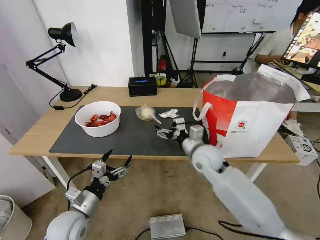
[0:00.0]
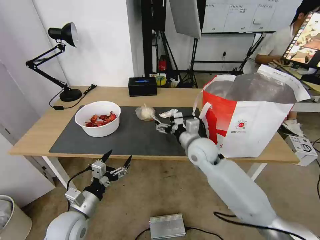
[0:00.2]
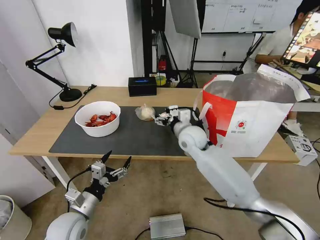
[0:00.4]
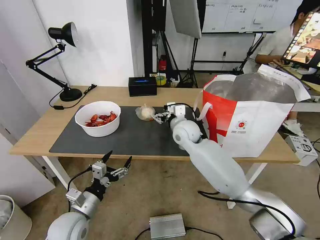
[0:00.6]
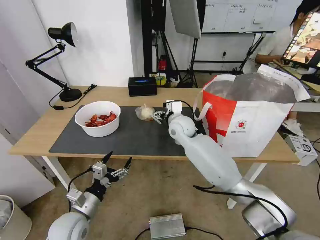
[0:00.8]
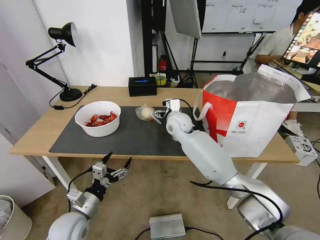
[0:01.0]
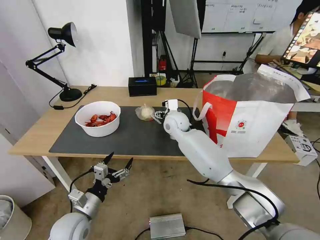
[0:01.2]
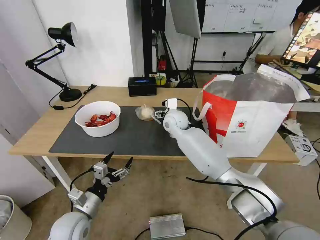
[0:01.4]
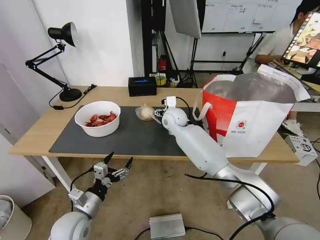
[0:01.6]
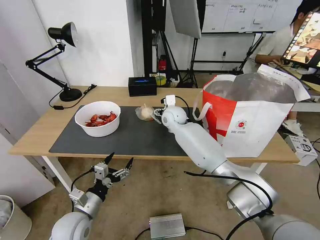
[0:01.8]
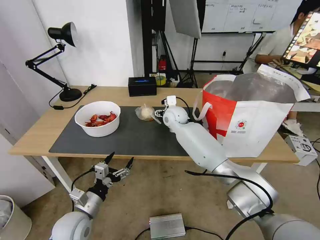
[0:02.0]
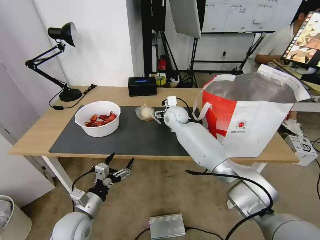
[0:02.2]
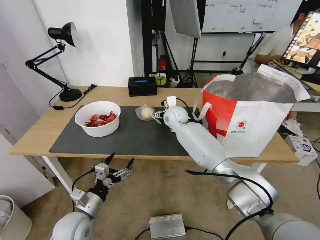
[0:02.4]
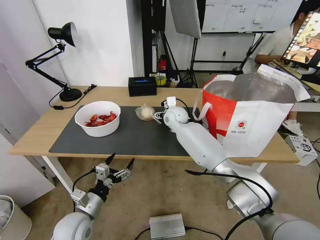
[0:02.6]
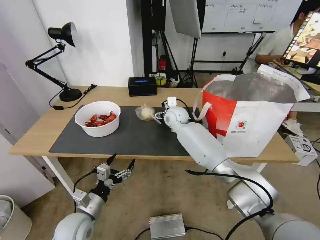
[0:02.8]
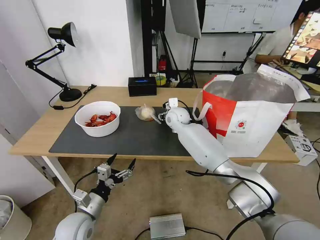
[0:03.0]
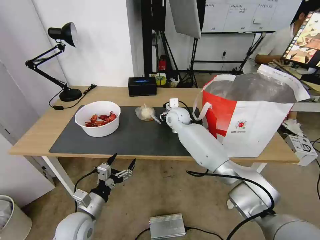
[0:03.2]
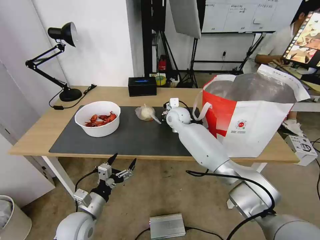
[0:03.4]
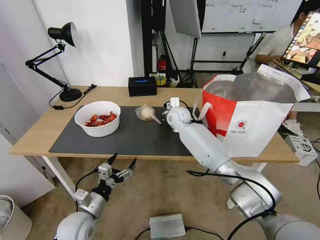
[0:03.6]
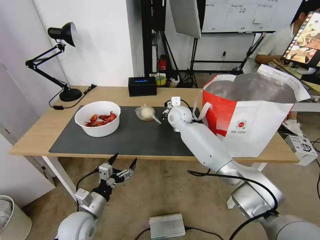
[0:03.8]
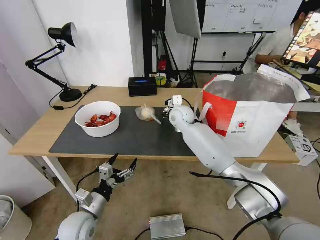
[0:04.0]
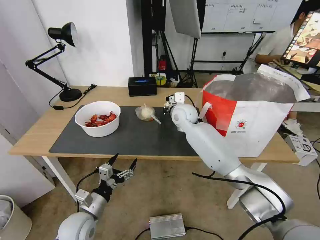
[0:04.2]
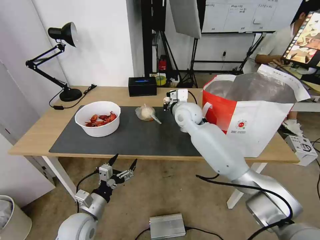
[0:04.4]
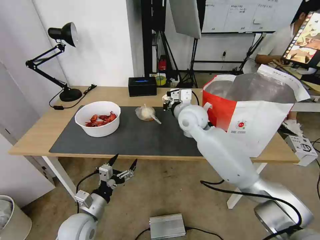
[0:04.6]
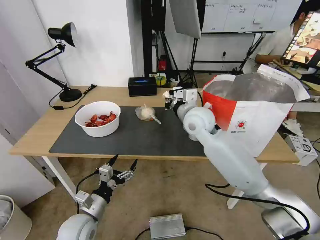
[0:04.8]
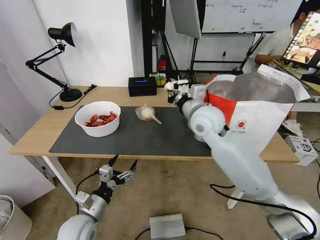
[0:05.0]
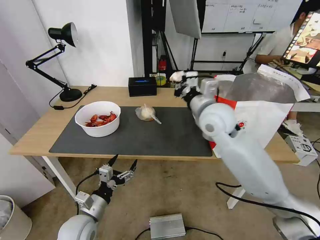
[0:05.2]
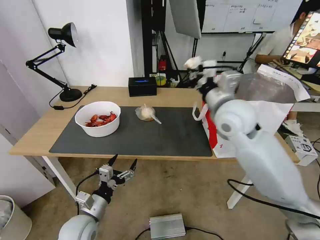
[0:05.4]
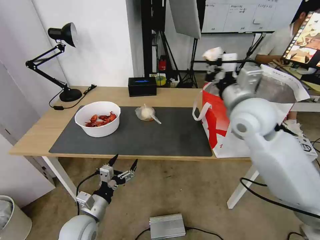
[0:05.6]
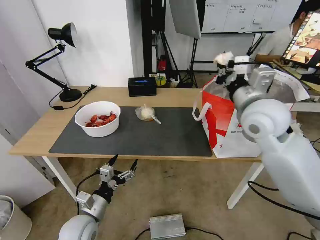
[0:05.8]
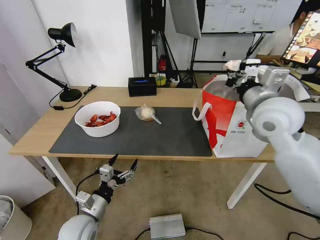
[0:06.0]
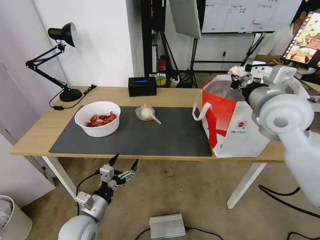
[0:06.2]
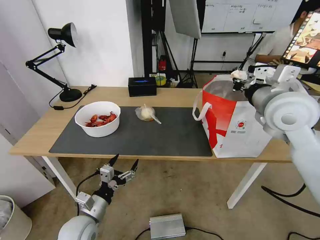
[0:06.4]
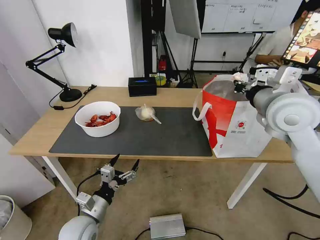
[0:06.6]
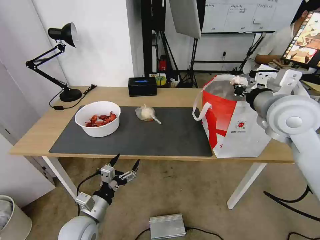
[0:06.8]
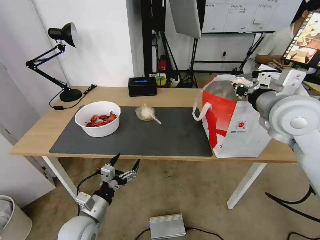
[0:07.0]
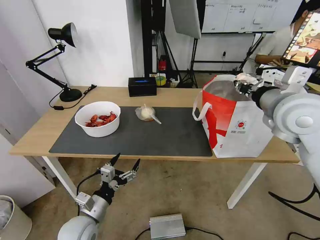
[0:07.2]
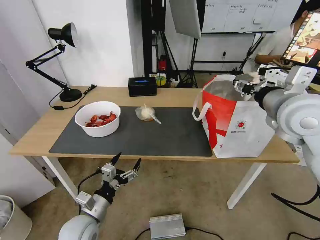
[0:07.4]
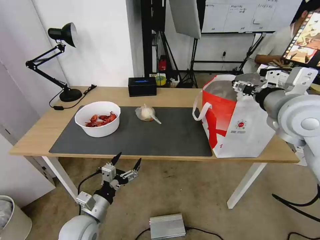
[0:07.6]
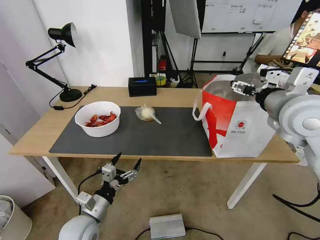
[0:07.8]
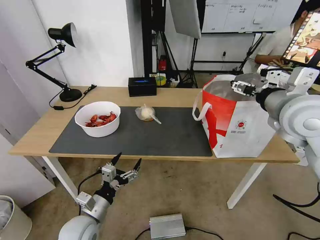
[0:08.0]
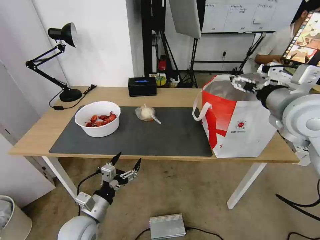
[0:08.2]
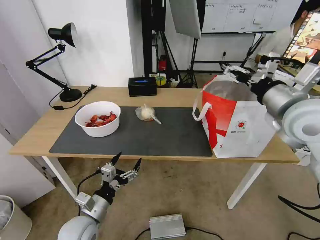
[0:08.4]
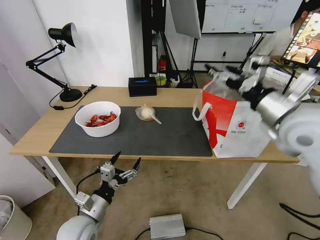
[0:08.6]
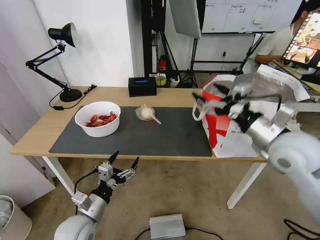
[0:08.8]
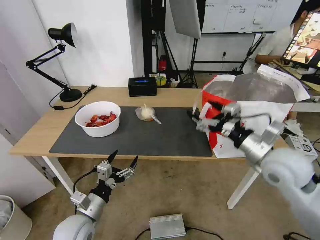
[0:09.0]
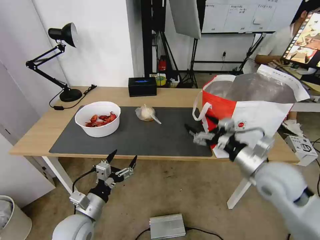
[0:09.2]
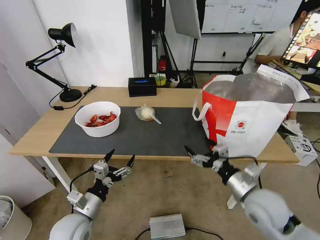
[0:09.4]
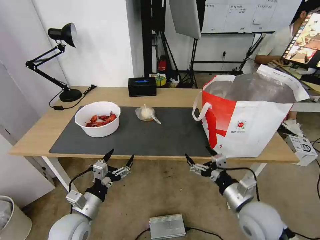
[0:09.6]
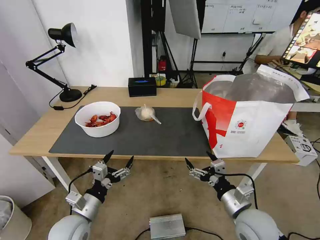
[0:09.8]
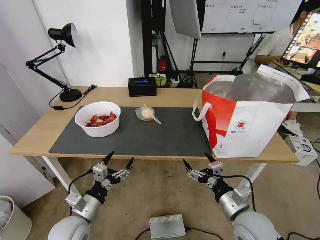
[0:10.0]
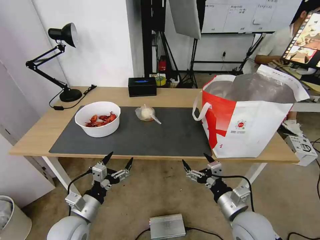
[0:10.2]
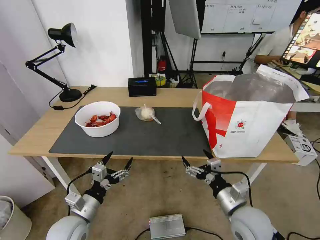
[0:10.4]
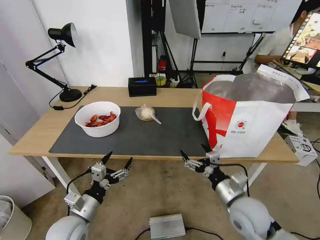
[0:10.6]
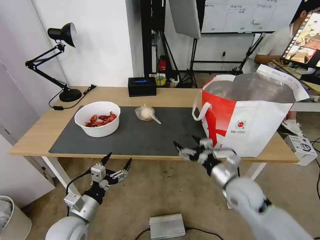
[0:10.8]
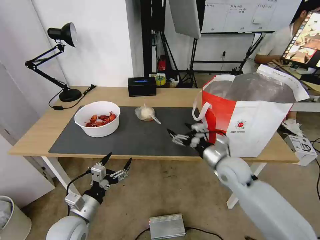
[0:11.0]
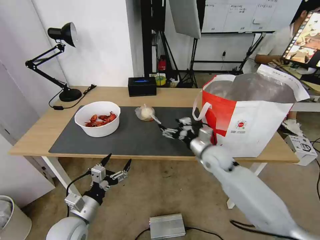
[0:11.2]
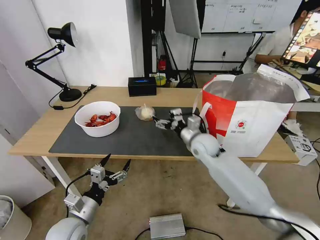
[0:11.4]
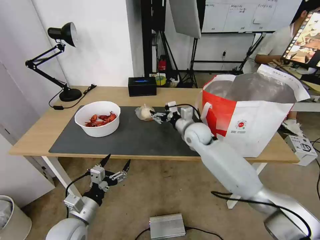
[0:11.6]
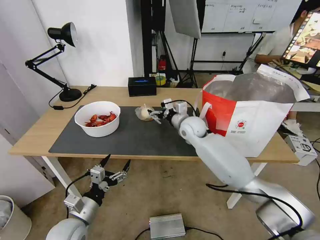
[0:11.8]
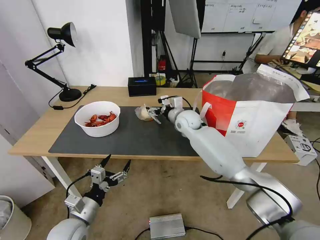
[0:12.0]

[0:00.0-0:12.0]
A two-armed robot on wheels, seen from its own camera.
Task of the whole recording: Pick up the trash from the table and place it into the takeout bag.
0:00.0 to 0:01.6: The right gripper is displaced forward and to the left by approximately 20 cm.
0:01.6 to 0:03.0: The grippers make only small movements.
0:03.0 to 0:04.4: The right gripper is displaced upward and backward by some 10 cm, and closes its fingers.
0:04.4 to 0:06.0: The right gripper is displaced to the right, backward and upward by approximately 25 cm.
0:06.0 to 0:07.6: The right gripper opens up.
0:07.6 to 0:09.0: The right gripper shifts approximately 10 cm downward.
0:09.0 to 0:10.4: The right gripper moves downward and backward, some 20 cm.
0:10.4 to 0:12.0: The right gripper moves forward, roughly 35 cm.

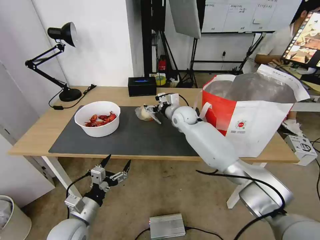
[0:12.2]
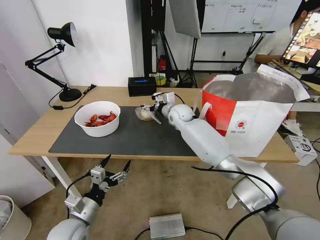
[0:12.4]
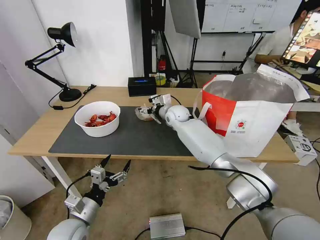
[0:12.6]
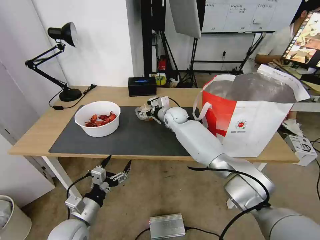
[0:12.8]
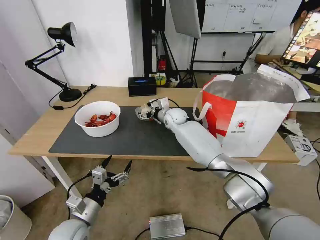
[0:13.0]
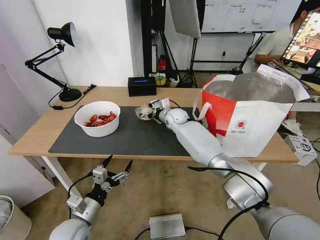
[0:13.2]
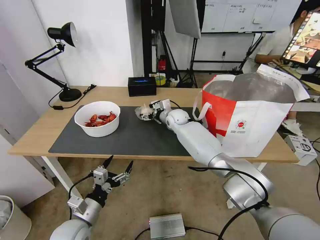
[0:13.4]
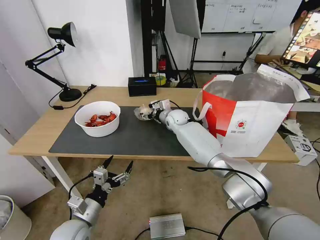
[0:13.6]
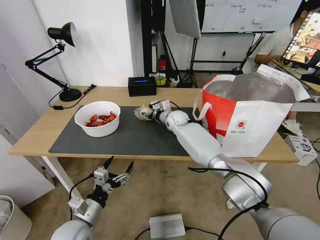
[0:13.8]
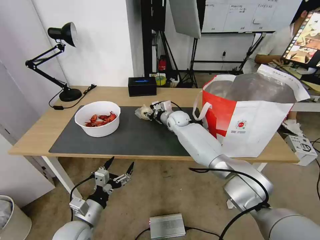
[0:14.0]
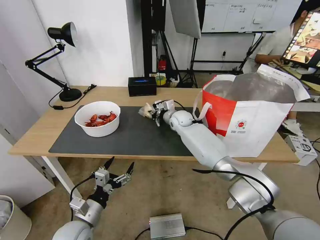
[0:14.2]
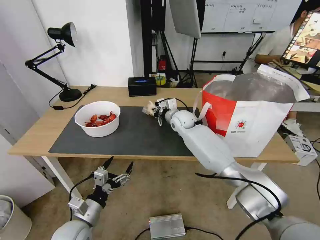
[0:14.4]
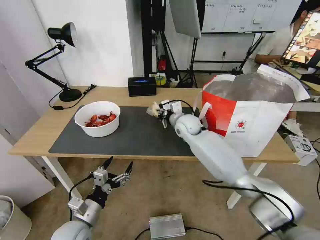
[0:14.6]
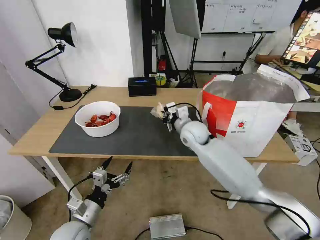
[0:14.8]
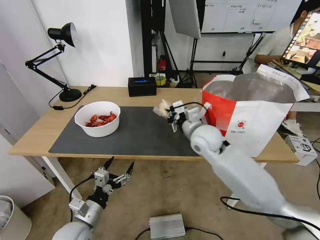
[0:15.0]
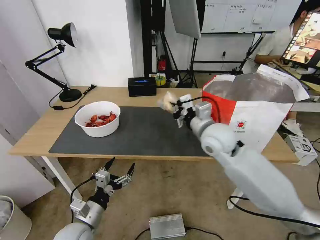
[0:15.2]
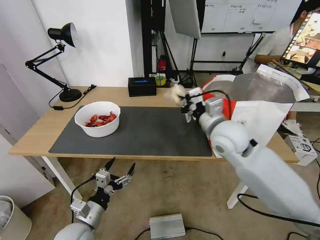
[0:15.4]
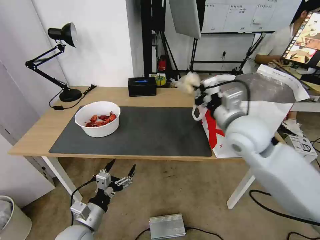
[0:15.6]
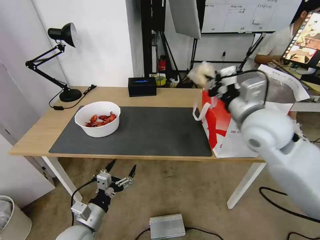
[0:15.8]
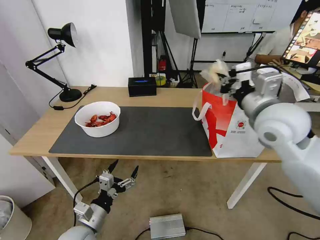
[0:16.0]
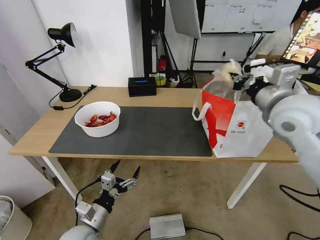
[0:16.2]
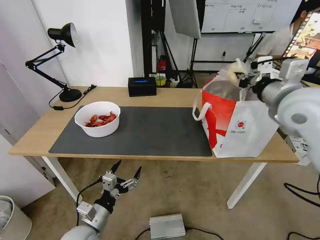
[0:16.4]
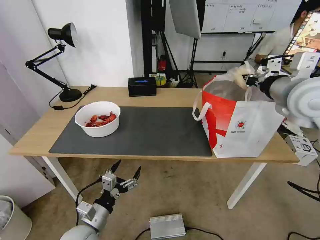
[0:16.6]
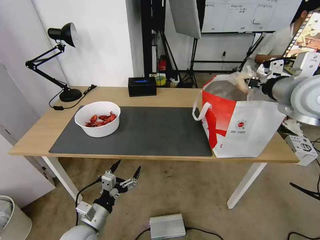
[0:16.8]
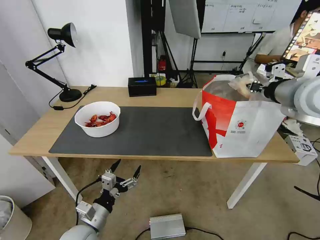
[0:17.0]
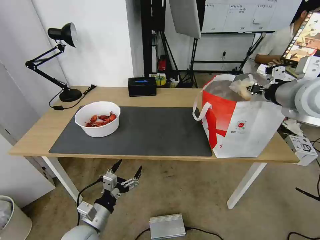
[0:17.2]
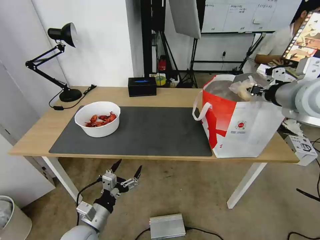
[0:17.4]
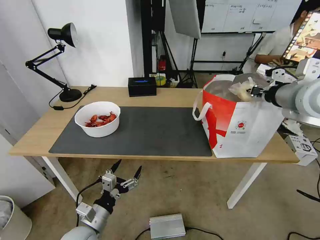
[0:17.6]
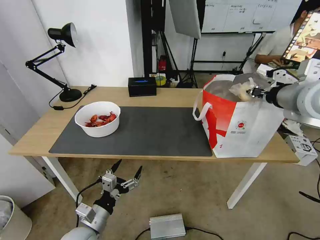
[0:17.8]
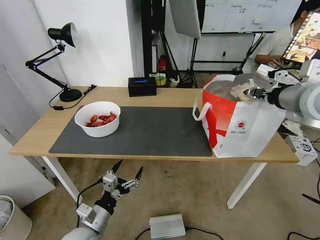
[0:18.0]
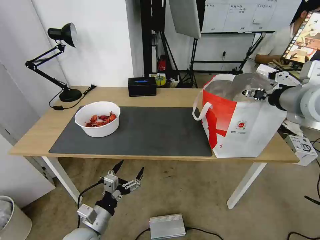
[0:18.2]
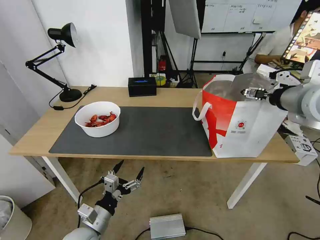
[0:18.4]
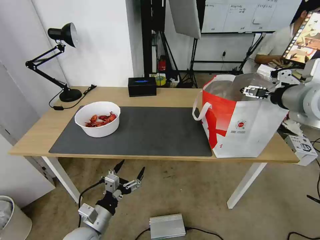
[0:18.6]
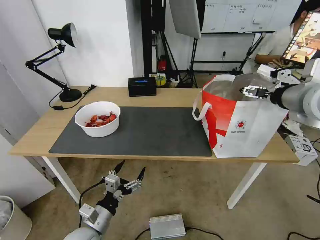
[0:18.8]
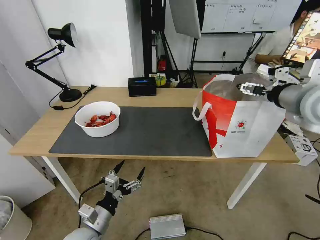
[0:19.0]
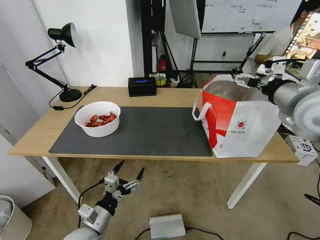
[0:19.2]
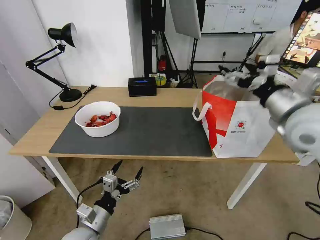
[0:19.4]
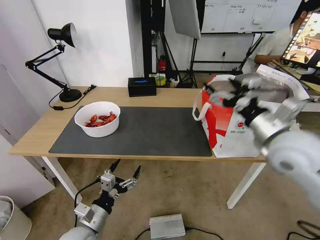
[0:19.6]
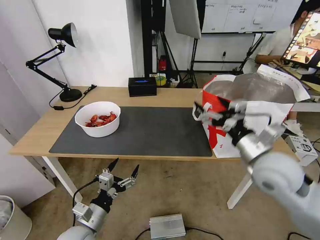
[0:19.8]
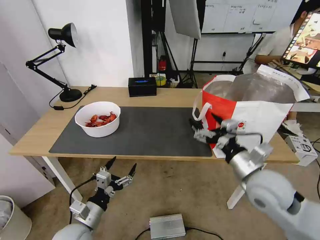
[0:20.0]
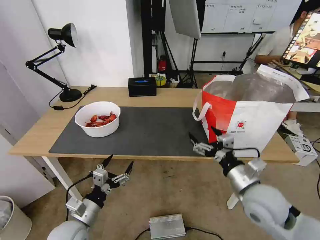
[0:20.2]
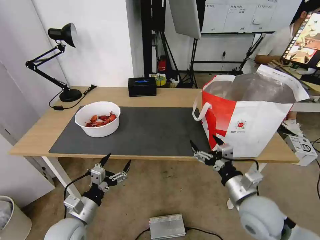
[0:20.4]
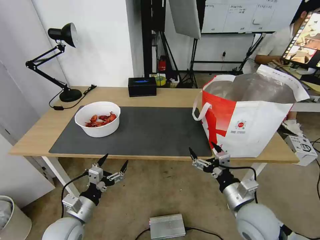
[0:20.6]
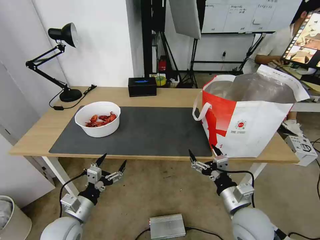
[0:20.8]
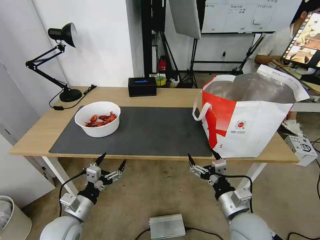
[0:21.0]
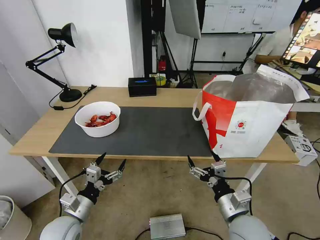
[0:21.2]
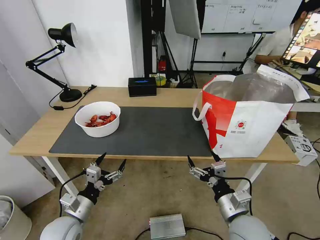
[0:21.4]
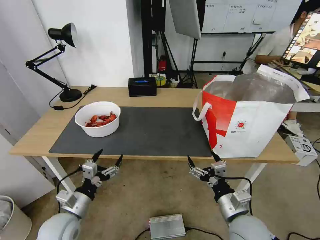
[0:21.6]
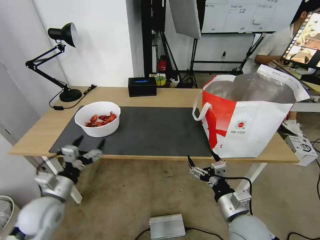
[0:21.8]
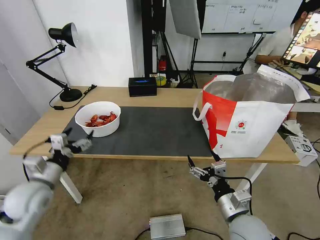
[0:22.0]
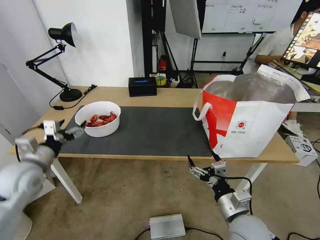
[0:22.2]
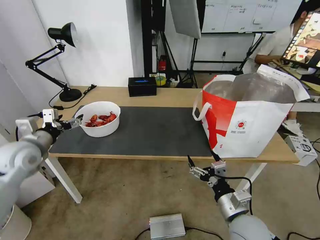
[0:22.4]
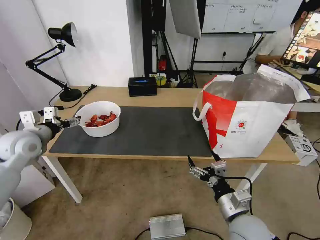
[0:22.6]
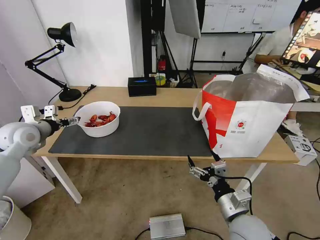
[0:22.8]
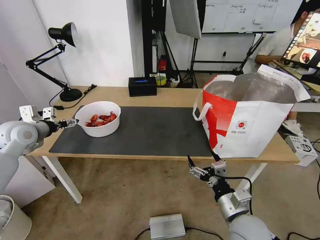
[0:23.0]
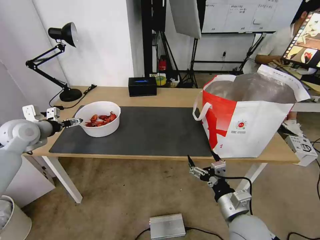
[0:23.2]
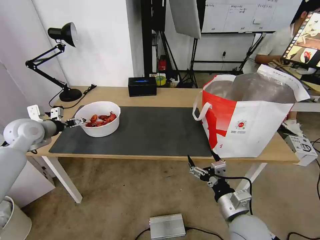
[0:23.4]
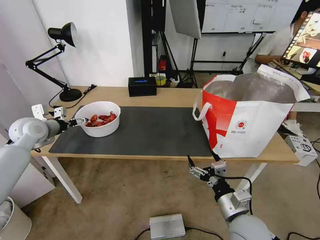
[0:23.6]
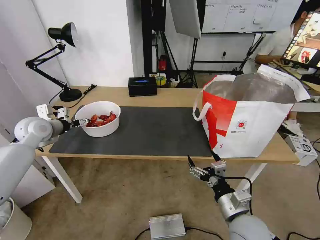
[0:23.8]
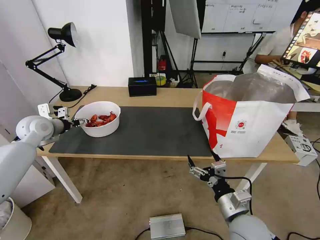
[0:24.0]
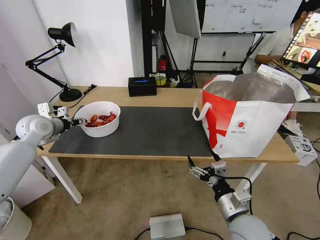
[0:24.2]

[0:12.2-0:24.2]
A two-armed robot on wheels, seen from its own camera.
Task of the whole recording: Pick up the trash from the table and place it into the takeout bag.
0:12.2 to 0:13.8: The right gripper heads downward, covering some 5 cm, and closes up.
0:13.8 to 0:15.2: The right gripper is displaced backward, upward and to the right by about 25 cm, and closes.
0:15.2 to 0:16.6: The right gripper moves to the right and upward, roughly 20 cm.
0:16.6 to 0:18.2: The right gripper opens its fingers.
0:18.2 to 0:19.8: The right gripper heads downward, backward and to the left, covering roughly 20 cm, and opens.
0:19.8 to 0:21.2: The left gripper moves some 5 cm. Meanwhile the right gripper heads downward and backward, covering some 20 cm.
0:21.2 to 0:22.6: The left gripper moves forward, upward and to the left, about 30 cm.
0:22.6 to 0:24.2: The left gripper shifts about 5 cm forward, and closes.
